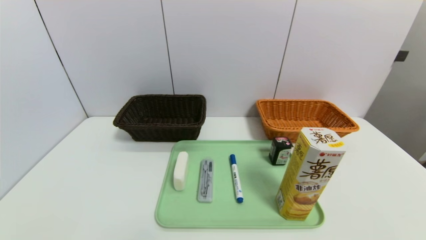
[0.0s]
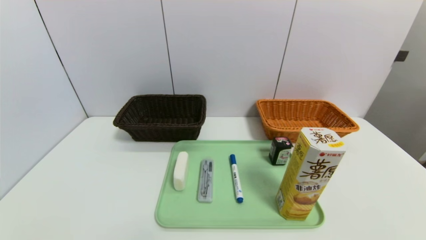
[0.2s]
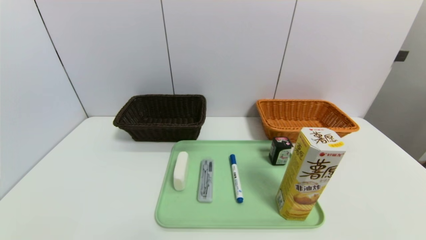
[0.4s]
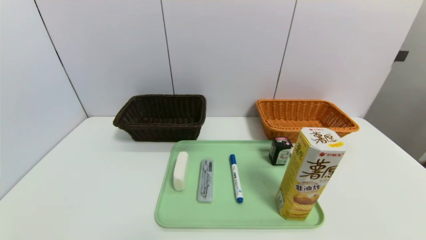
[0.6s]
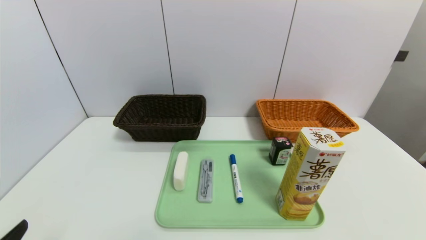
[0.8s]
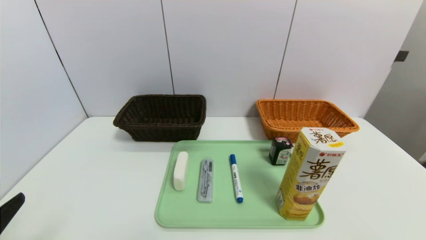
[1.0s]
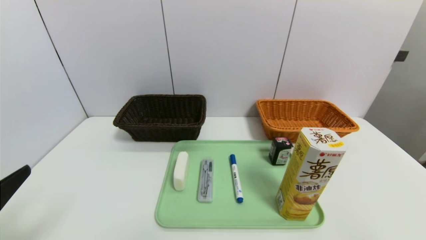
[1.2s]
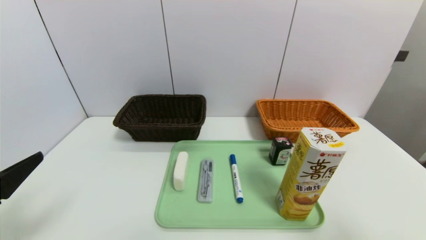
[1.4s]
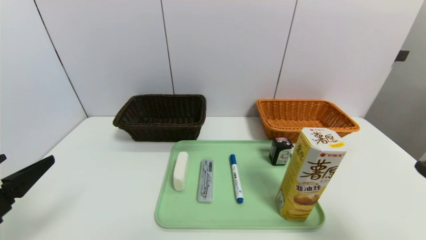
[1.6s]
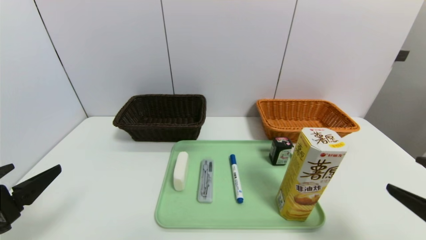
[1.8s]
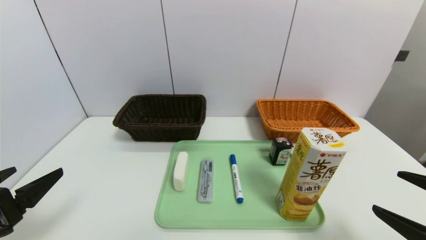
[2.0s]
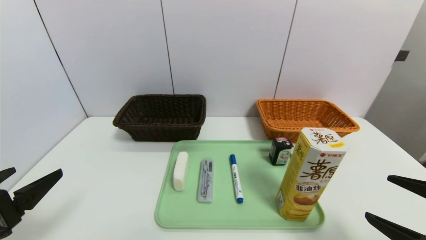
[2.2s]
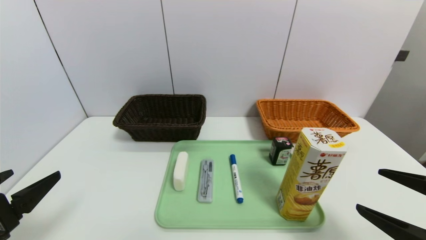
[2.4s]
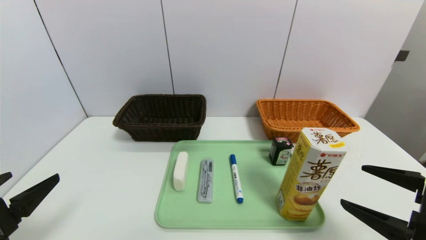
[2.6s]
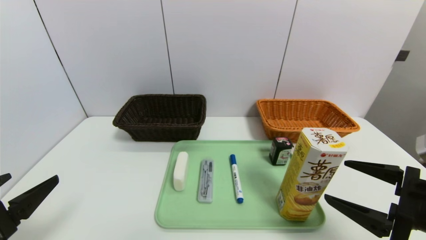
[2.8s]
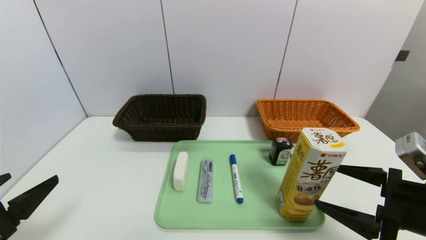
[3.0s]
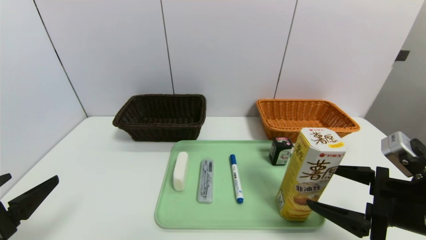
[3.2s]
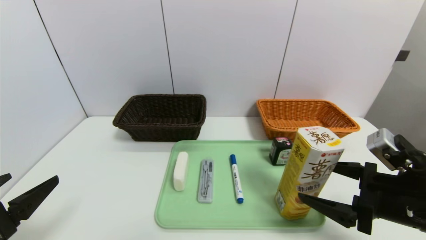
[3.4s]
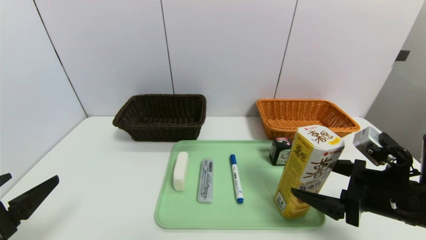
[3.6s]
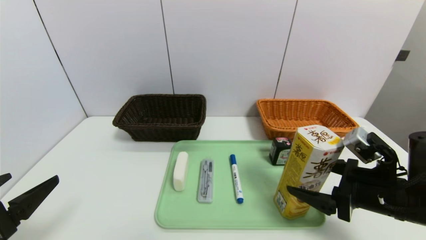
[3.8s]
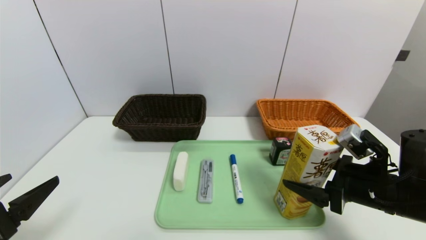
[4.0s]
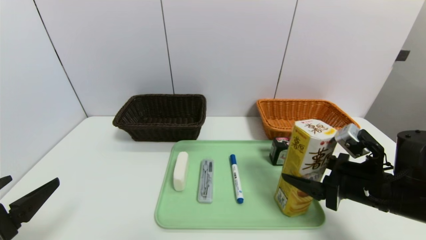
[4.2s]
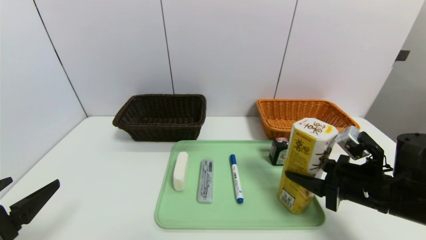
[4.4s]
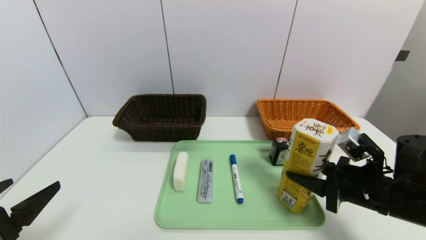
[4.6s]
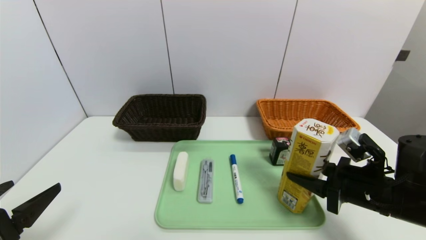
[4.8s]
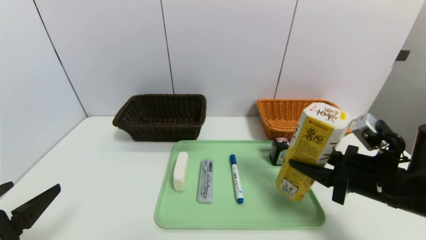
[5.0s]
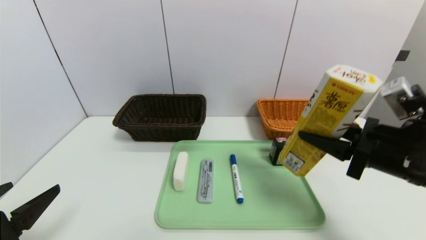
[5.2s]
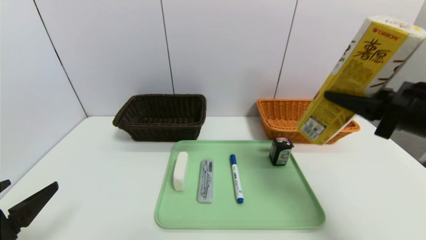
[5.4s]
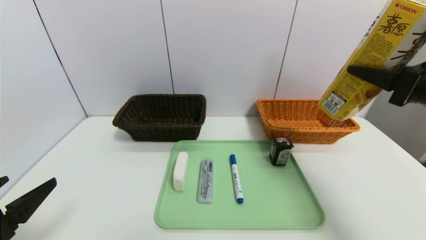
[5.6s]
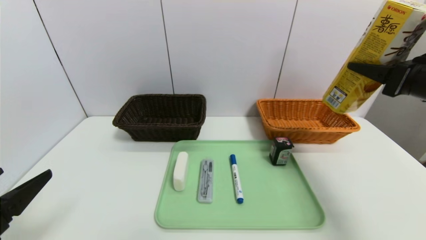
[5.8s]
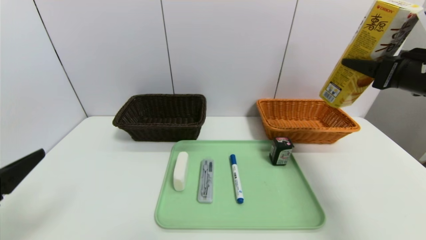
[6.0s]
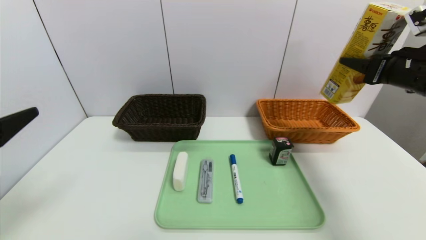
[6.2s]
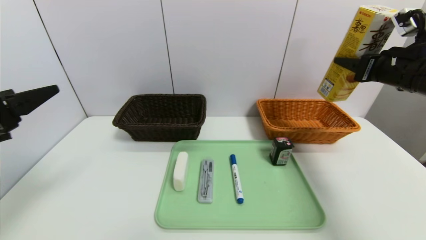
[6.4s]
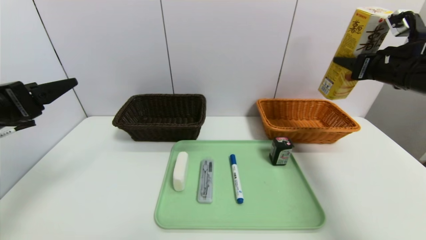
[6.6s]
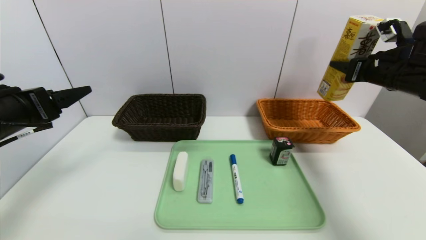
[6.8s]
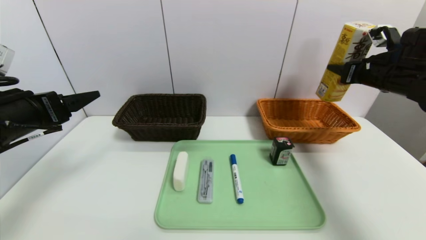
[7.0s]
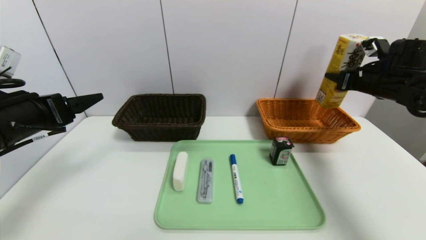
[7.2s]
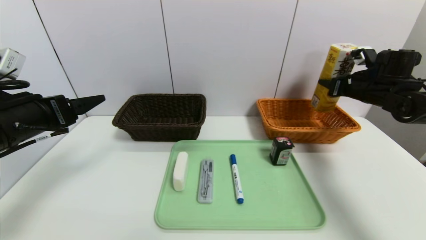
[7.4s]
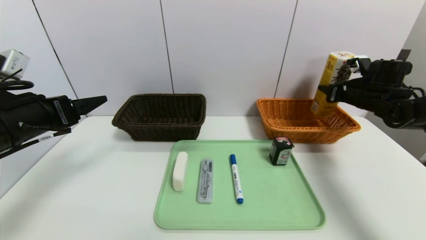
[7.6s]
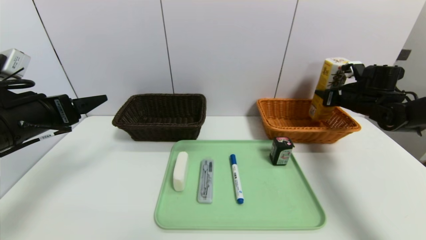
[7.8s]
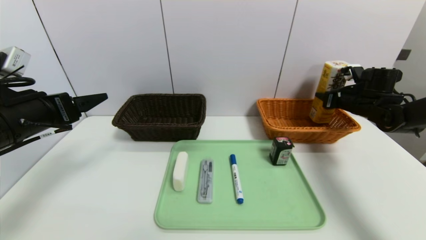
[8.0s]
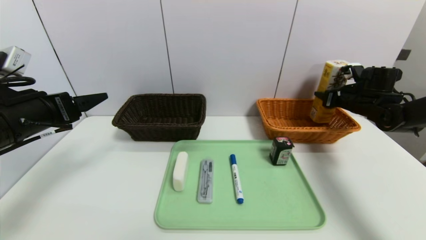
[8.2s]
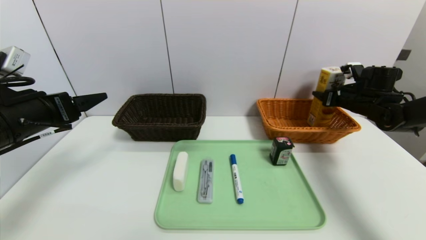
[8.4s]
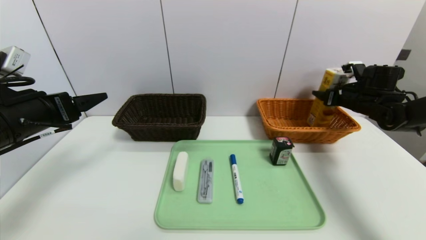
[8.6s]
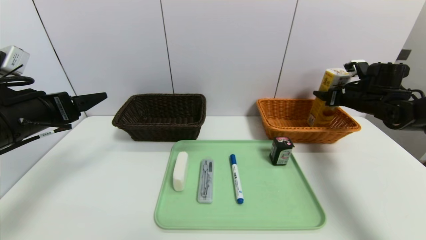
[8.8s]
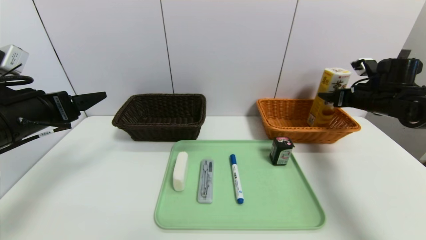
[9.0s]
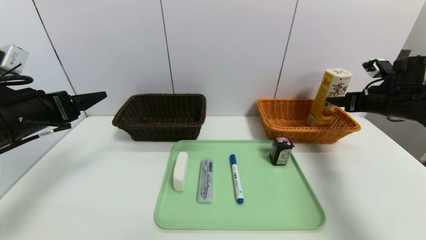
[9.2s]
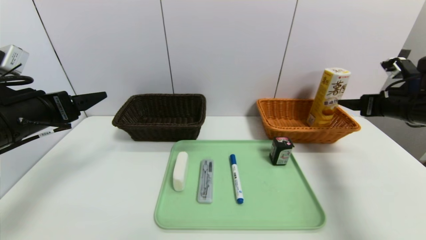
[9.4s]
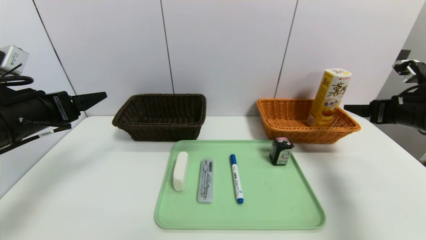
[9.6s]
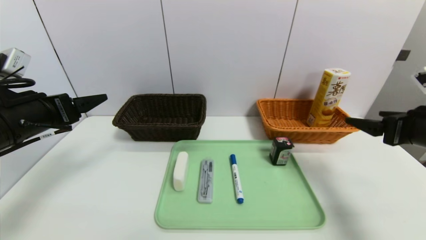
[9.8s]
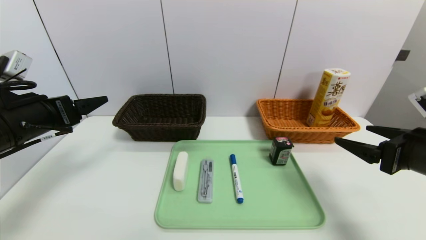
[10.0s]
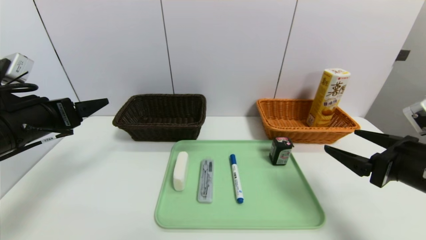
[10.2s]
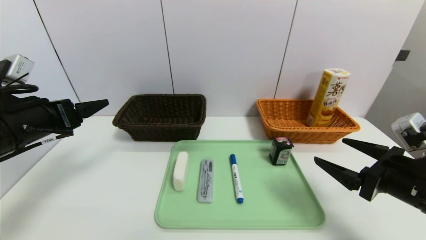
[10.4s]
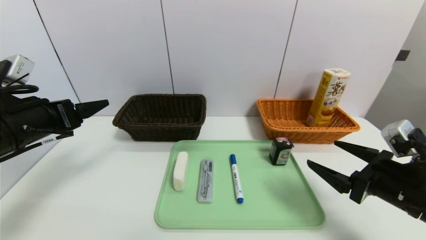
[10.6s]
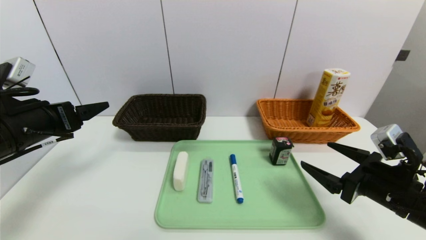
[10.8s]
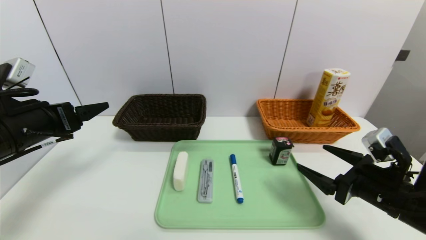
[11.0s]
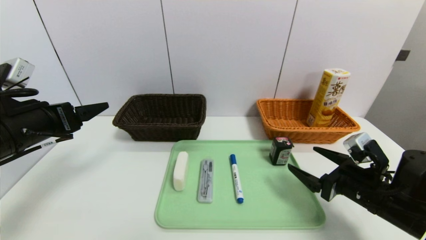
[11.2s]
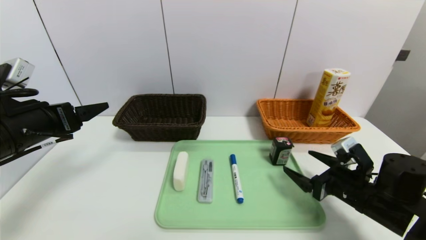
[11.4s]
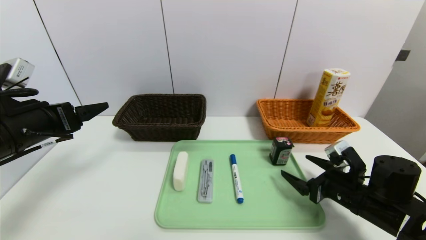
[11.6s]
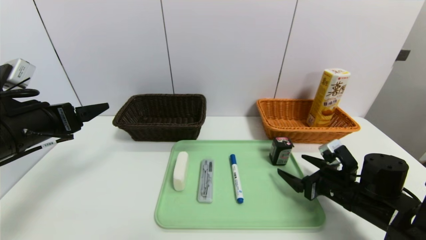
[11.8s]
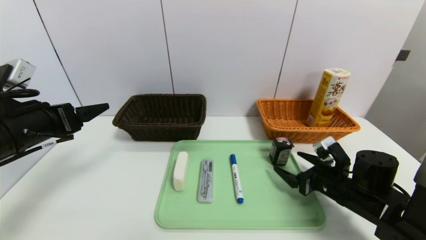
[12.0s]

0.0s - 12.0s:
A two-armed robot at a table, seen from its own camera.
Task of the whole recording: place the food in the right basket with the right gripper, and place the non food items in the left basket with the left gripper.
Step, 0.0s - 9.2s: Grasp the potato chips and put it in the right basket.
0.0s - 1.6s: Both grippers travel together upward and forward, approximately 15 cm.
1.6s - 3.0s: The right gripper heads forward and downward, covering approximately 10 cm.
3.0s - 4.4s: The right gripper travels forward by some 5 cm, and closes.
4.4s - 6.0s: The right gripper shifts approximately 20 cm upward and to the right.
6.0s - 7.6s: The left gripper shifts some 15 cm forward. Meanwhile the right gripper travels forward and downward by approximately 20 cm.
7.6s - 9.0s: The right gripper opens up.
9.0s - 10.4s: The right gripper moves backward, roughly 25 cm.
10.4s - 12.0s: The right gripper heads downward and forward, covering roughly 15 cm.

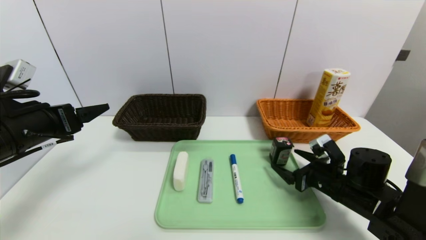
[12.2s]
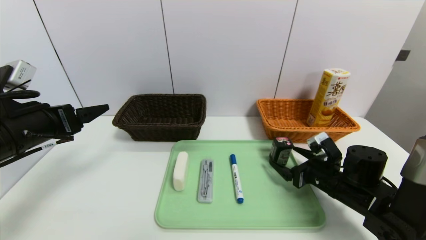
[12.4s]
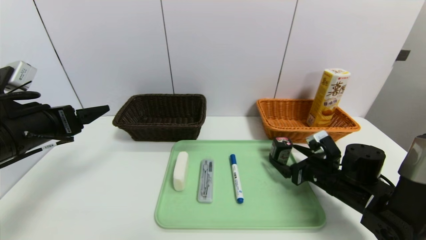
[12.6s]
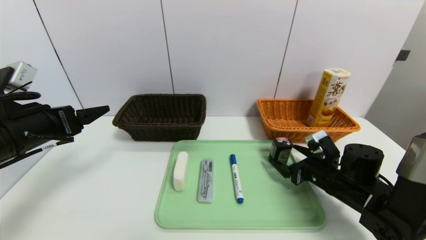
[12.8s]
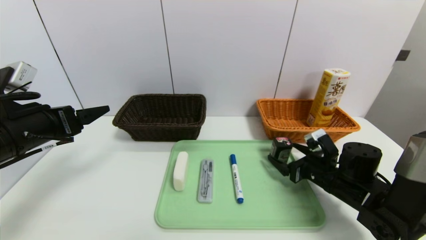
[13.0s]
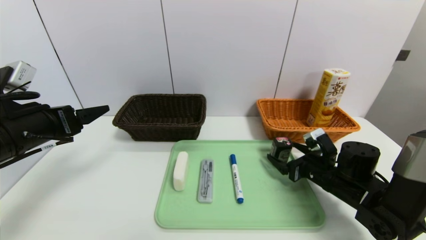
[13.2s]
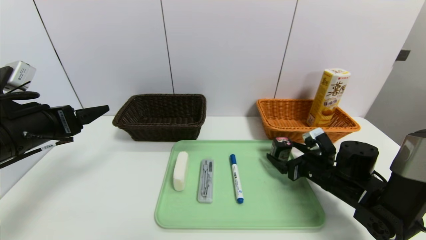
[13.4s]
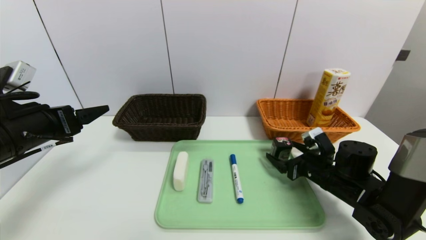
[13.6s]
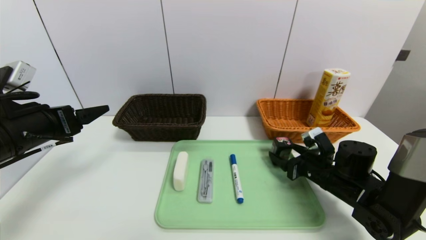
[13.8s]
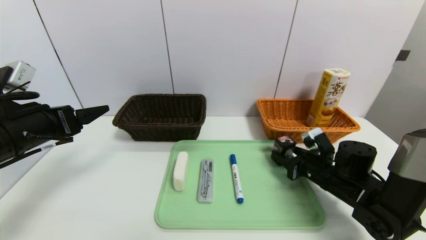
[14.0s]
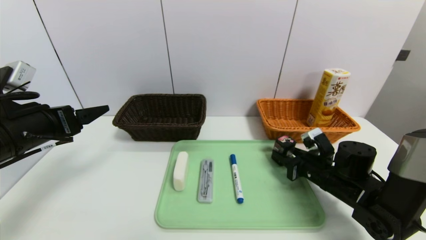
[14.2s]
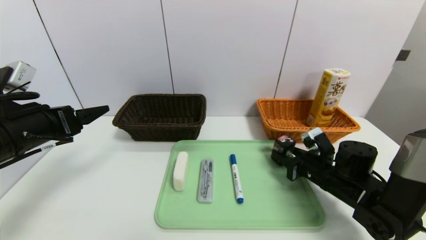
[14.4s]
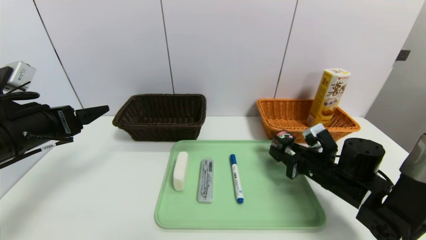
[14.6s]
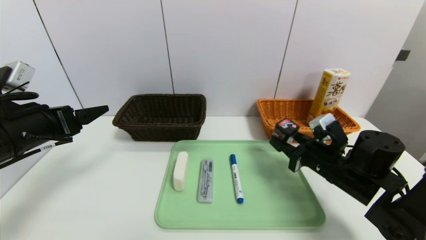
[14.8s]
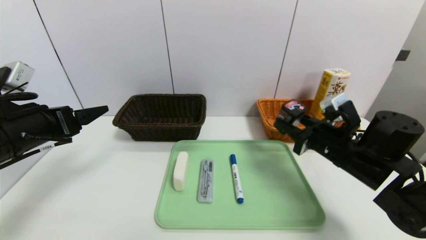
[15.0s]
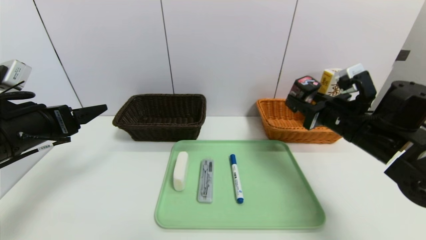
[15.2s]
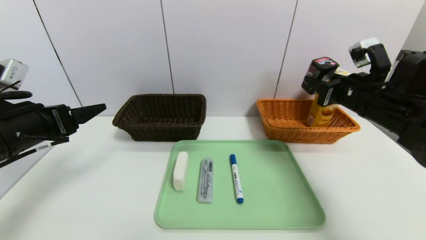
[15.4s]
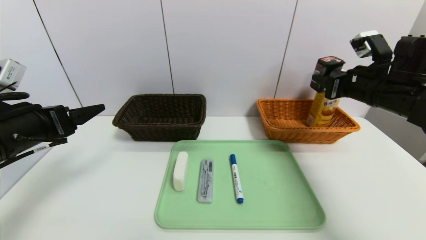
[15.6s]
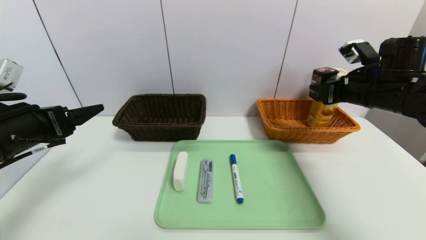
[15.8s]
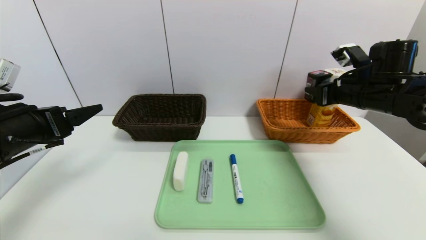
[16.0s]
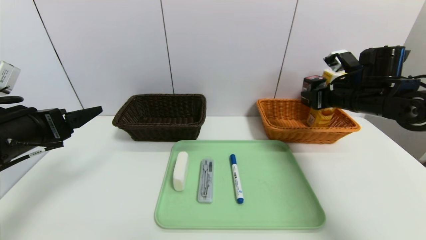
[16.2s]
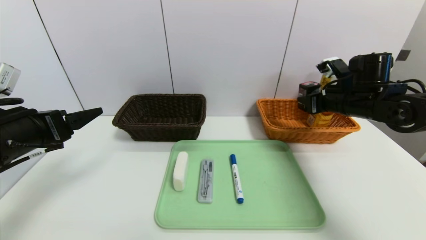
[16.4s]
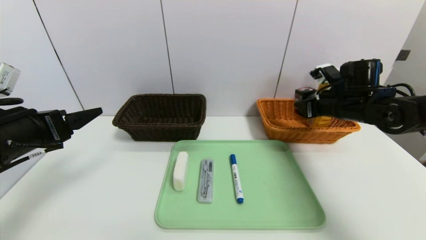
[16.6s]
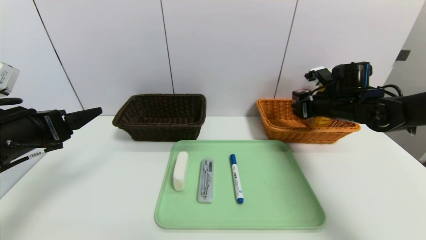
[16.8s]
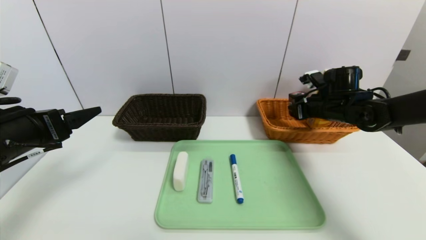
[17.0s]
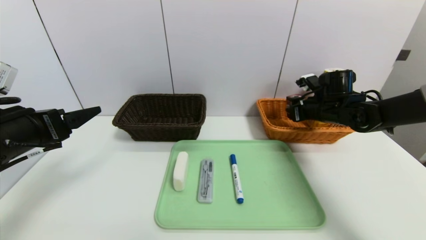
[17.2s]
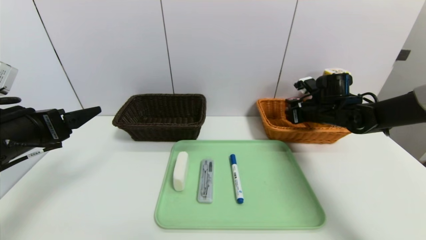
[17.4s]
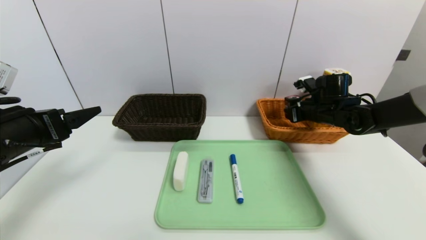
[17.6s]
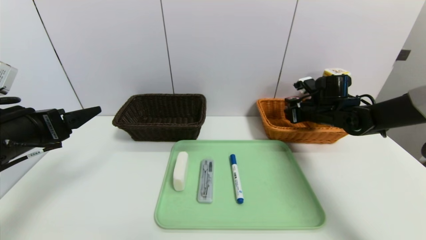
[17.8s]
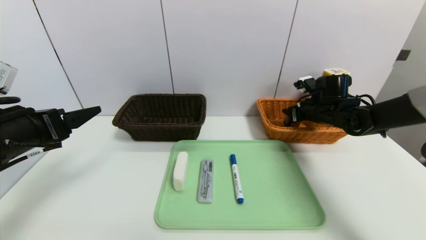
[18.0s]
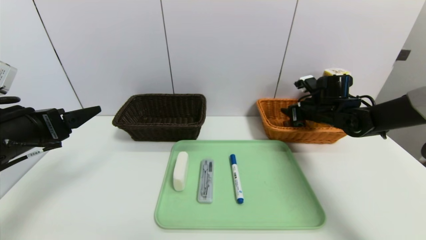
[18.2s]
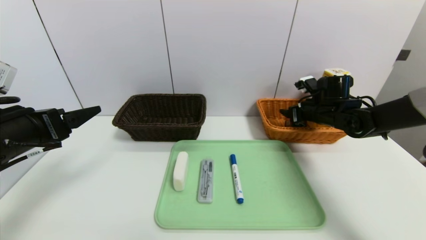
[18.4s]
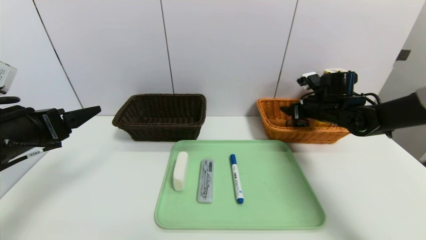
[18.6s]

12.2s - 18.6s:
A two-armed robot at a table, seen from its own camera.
Task of the whole recording: place the food in the right basket with the right gripper, and place the non food items in the left basket with the left gripper.
12.2s - 13.8s: The right gripper closes.
13.8s - 15.4s: The right gripper shifts roughly 20 cm upward, and closes its fingers.
15.4s - 17.0s: The right gripper shifts approximately 10 cm forward and downward.
17.0s - 18.6s: The right gripper opens up.
